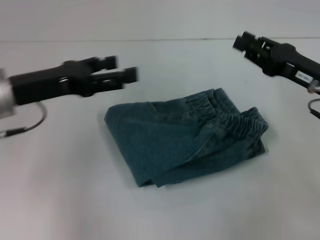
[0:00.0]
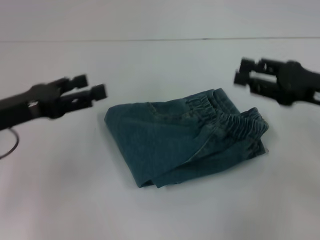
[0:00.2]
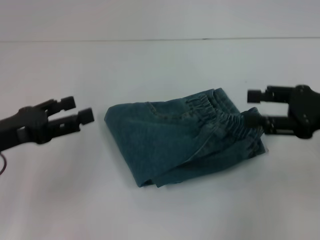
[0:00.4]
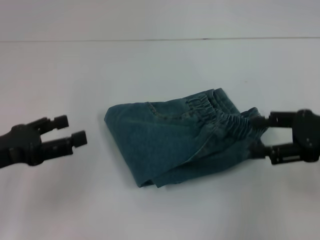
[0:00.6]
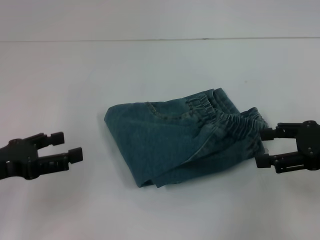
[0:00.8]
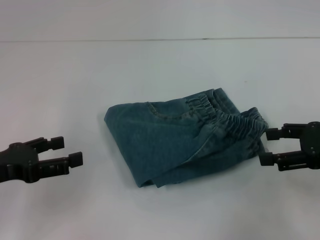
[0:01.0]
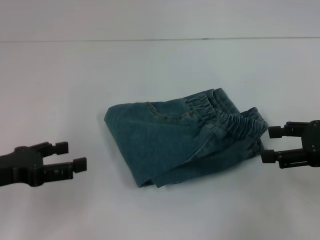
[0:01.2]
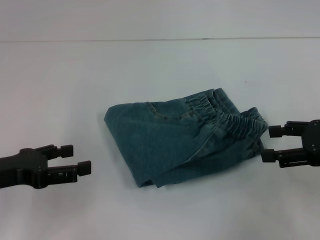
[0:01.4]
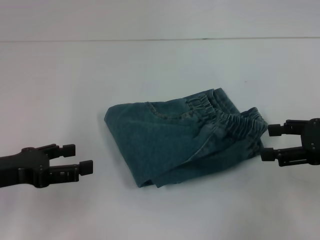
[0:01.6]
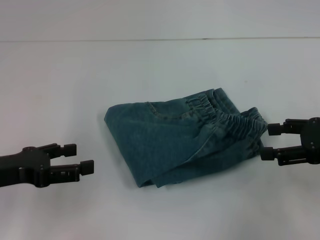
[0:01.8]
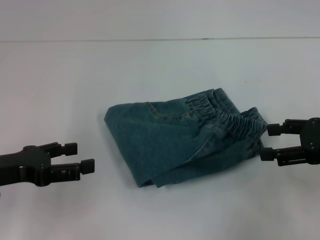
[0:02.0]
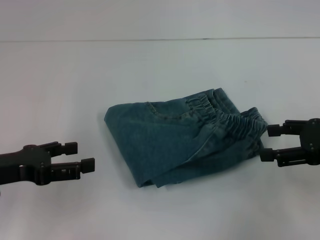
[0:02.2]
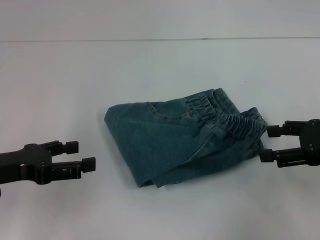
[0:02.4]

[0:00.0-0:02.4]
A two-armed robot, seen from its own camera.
0:00.0 to 0:01.2: The right gripper heads backward, covering some 5 cm, and opens its fingers. The left gripper goes about 10 cm backward, to the left and downward.
0:01.2 to 0:02.4: Both grippers stay put.

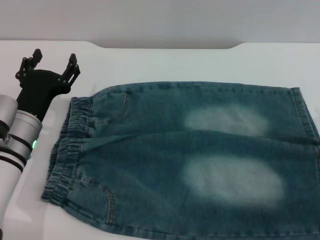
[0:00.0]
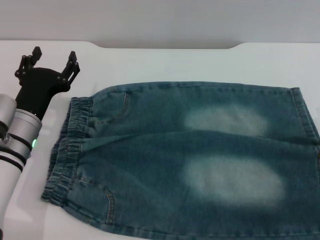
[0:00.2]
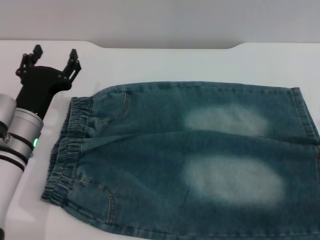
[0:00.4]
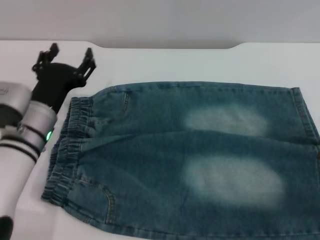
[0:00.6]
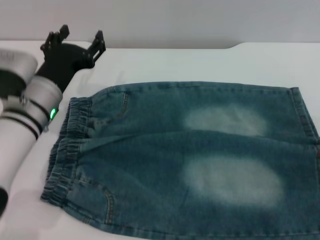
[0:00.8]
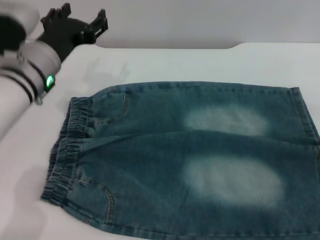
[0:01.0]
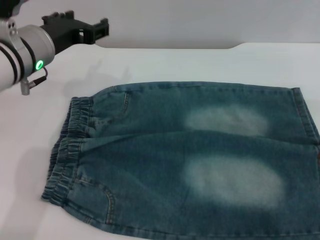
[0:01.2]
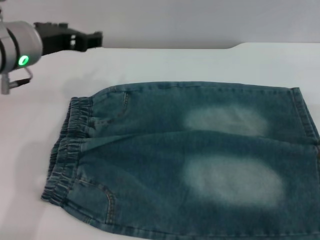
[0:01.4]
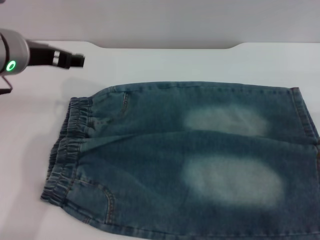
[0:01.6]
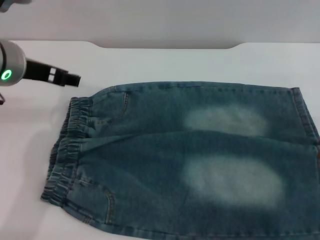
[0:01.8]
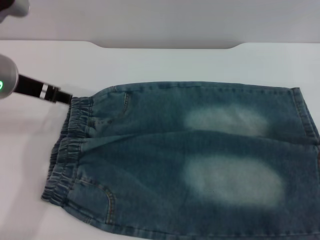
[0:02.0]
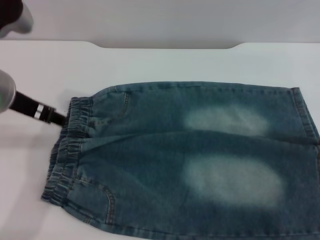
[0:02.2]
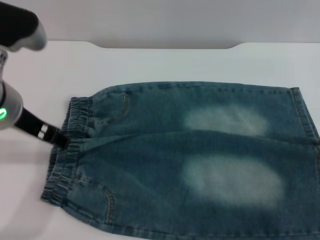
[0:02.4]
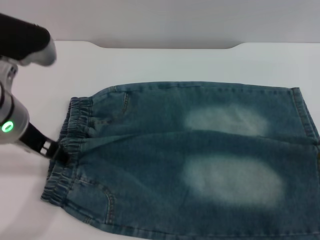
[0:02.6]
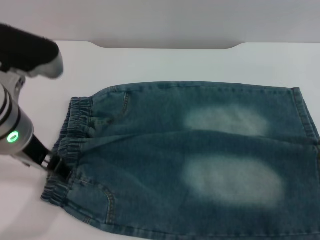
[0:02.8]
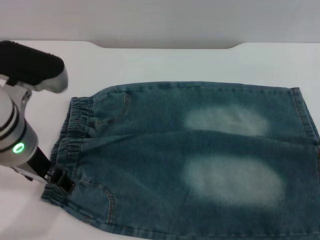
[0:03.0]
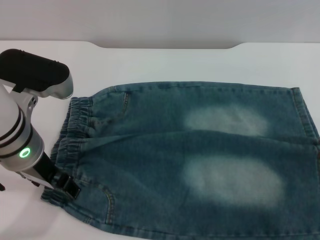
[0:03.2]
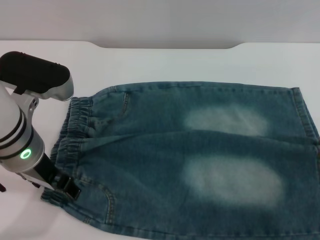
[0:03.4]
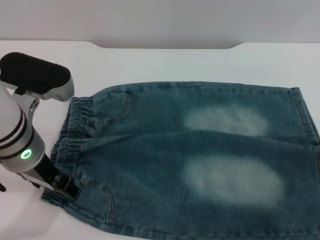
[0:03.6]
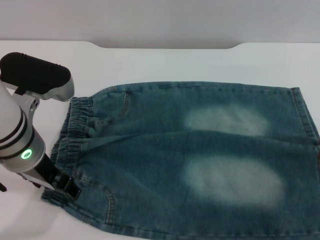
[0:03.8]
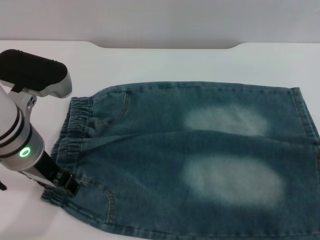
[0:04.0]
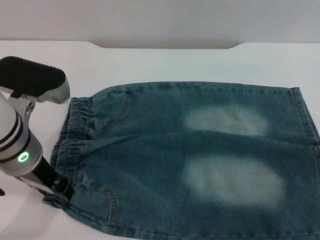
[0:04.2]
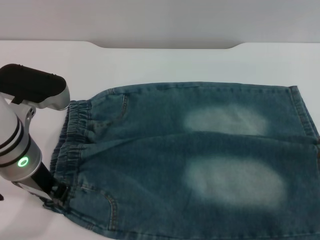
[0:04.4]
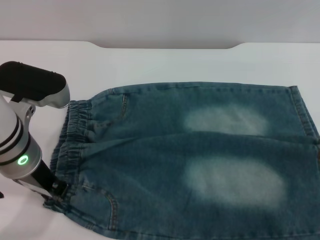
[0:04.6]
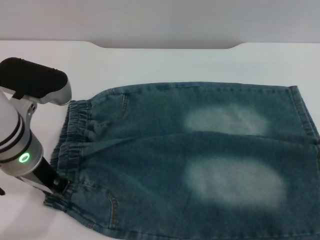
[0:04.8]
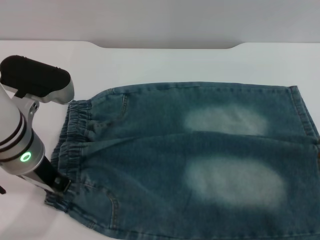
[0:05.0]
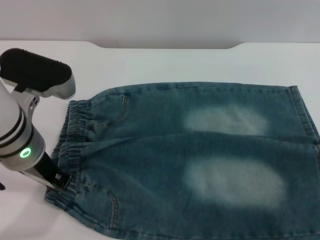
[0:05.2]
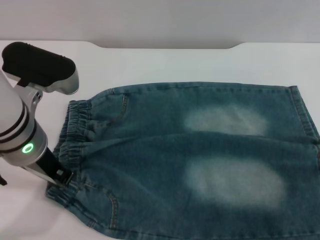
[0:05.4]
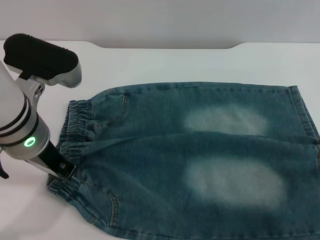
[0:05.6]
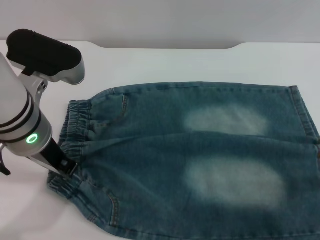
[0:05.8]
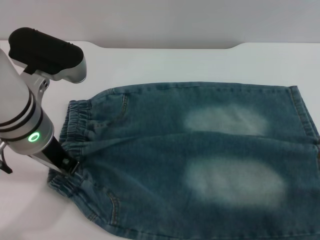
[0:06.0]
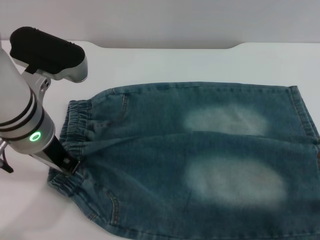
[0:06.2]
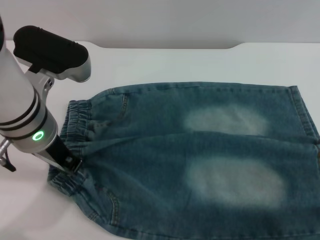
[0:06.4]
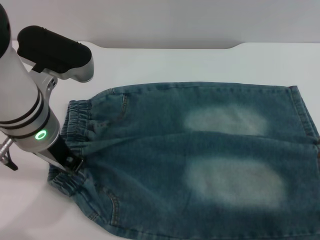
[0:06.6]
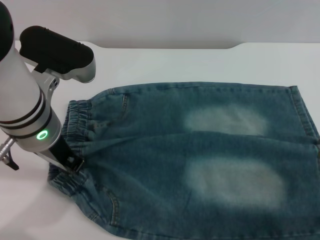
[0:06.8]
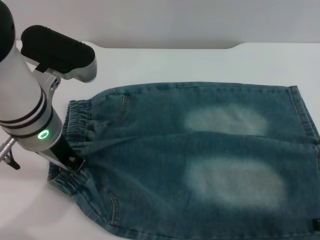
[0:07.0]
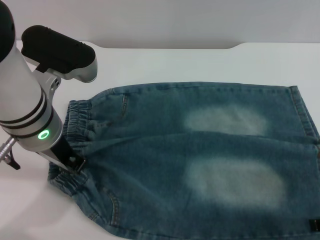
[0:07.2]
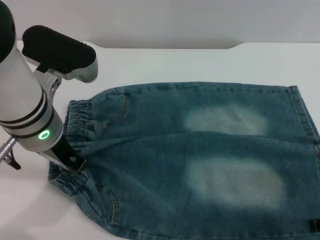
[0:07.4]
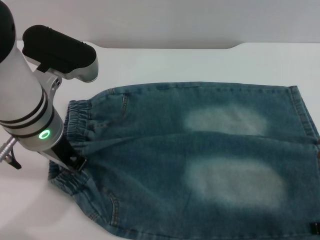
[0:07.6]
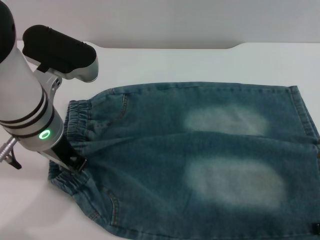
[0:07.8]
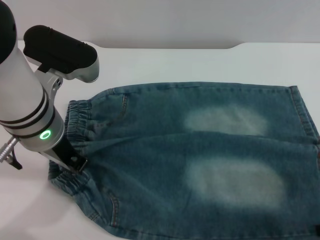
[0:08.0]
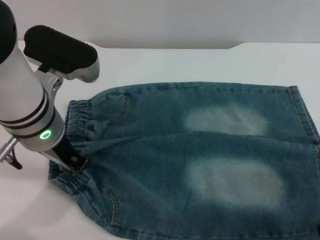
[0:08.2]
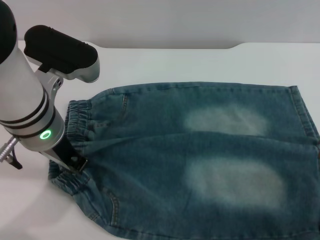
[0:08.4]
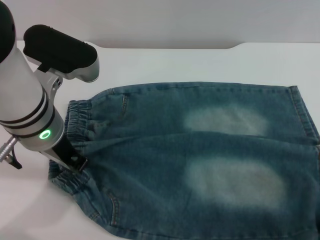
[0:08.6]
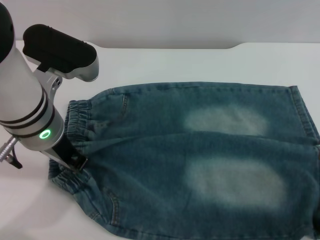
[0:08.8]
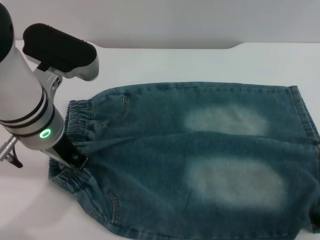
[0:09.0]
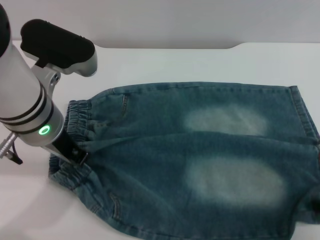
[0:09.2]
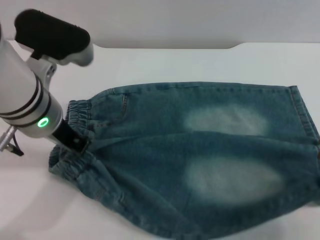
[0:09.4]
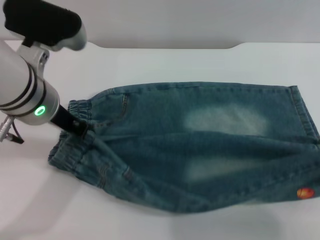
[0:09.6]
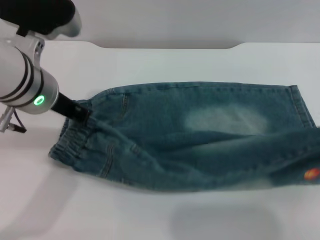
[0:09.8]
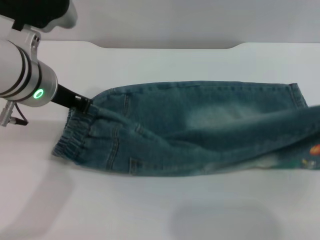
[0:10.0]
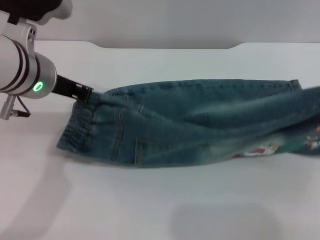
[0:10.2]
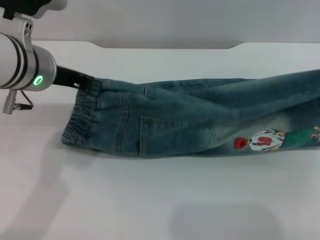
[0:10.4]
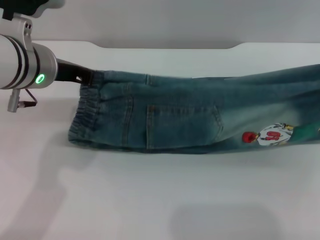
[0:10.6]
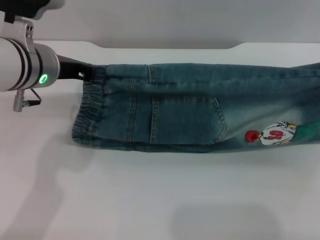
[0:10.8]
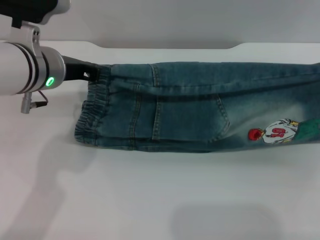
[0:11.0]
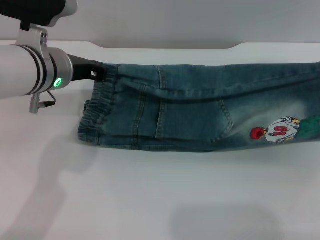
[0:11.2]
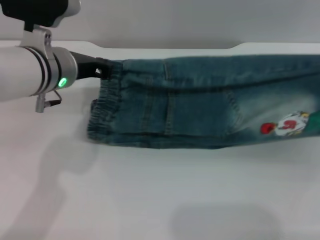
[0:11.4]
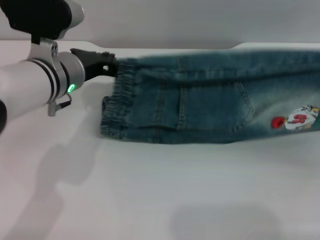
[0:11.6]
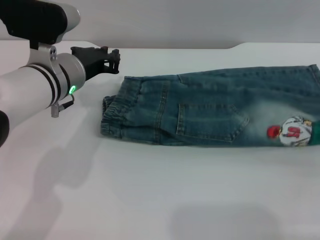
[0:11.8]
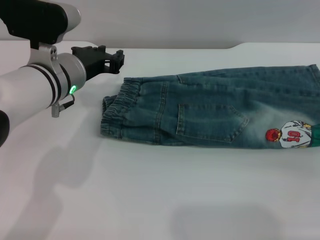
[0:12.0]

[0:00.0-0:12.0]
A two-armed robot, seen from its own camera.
0:00.0 to 0:01.6: The left gripper moves upward, approximately 15 cm.
0:01.6 to 0:03.0: The left gripper heads backward, covering some 5 cm.
0:03.0 to 0:04.4: The left gripper closes.
0:04.4 to 0:06.0: The left gripper closes up.
0:06.0 to 0:07.6: There are only small adjustments of the grippers.
0:07.6 to 0:09.0: The right gripper closes.
0:09.0 to 0:10.4: The right gripper goes some 5 cm upward.
0:10.4 to 0:12.0: The left gripper travels downward by approximately 5 cm. Meanwhile the right gripper heads downward, covering some 10 cm, and opens.

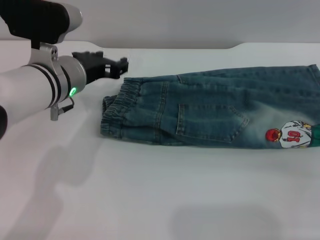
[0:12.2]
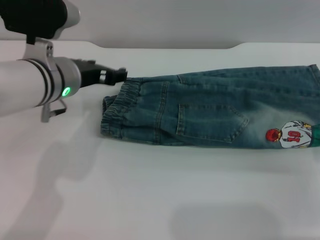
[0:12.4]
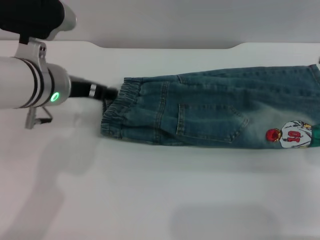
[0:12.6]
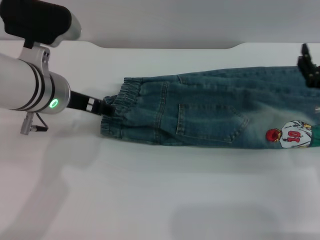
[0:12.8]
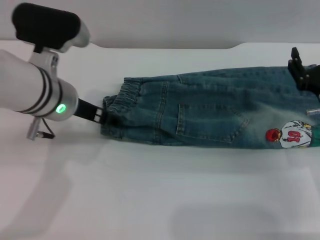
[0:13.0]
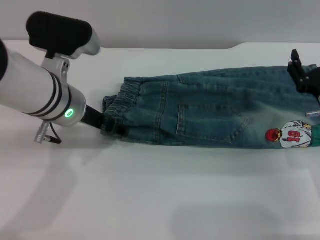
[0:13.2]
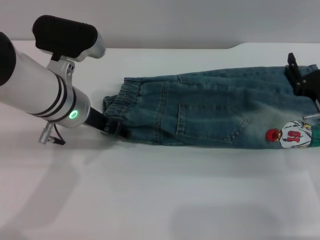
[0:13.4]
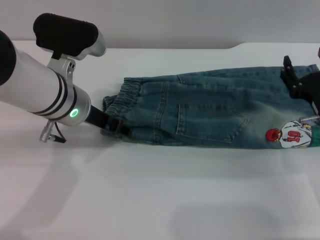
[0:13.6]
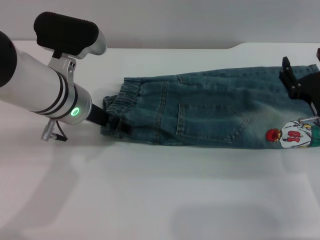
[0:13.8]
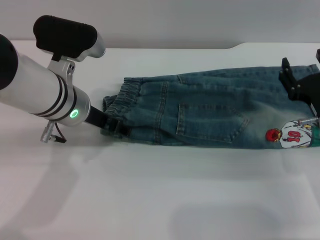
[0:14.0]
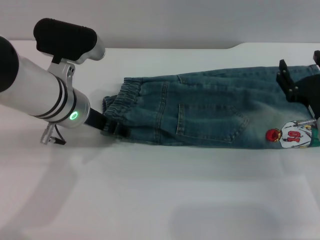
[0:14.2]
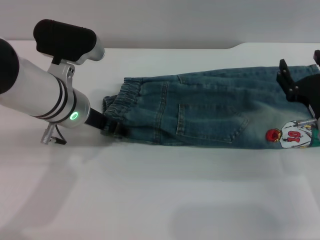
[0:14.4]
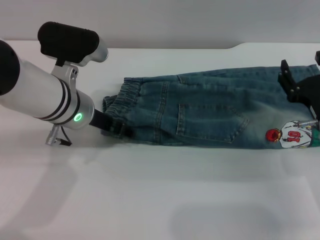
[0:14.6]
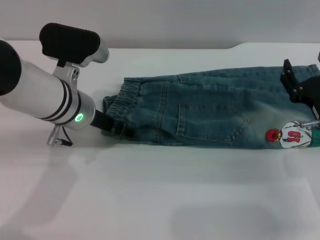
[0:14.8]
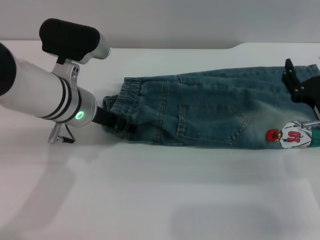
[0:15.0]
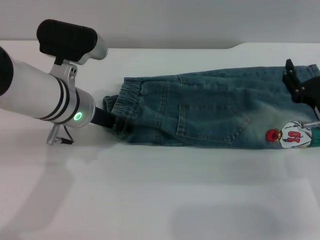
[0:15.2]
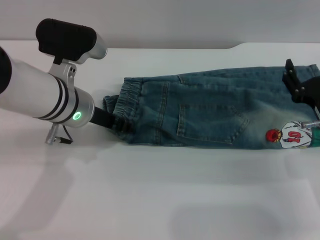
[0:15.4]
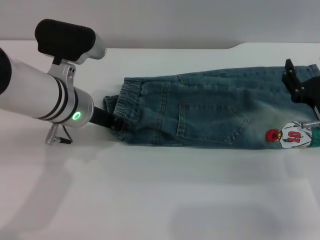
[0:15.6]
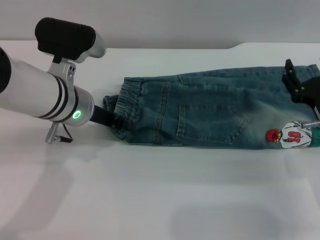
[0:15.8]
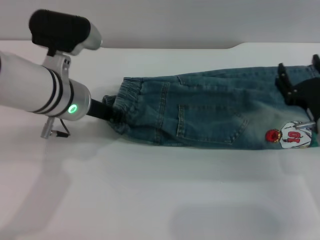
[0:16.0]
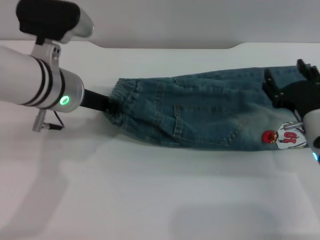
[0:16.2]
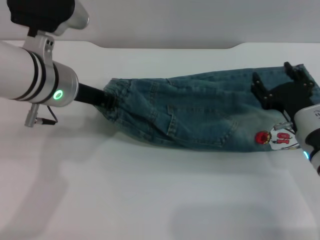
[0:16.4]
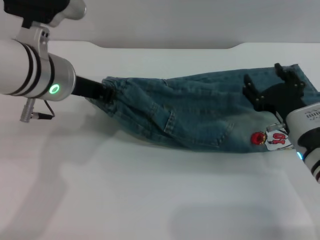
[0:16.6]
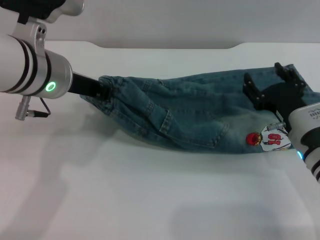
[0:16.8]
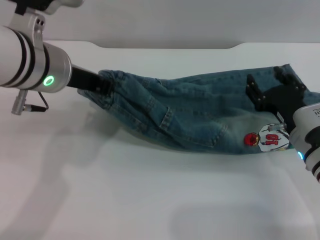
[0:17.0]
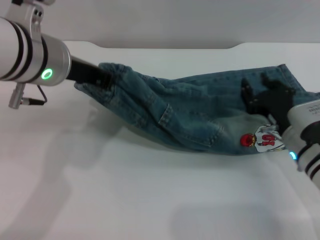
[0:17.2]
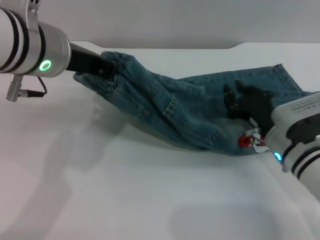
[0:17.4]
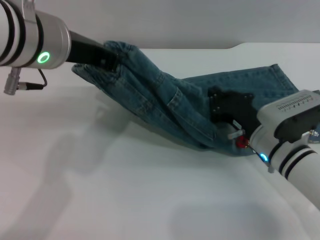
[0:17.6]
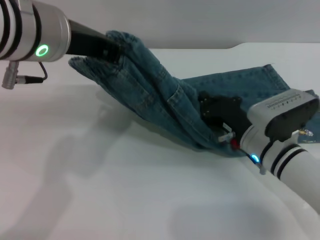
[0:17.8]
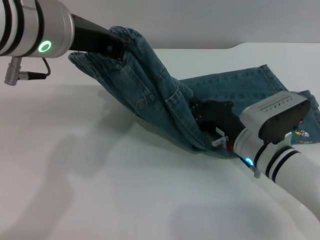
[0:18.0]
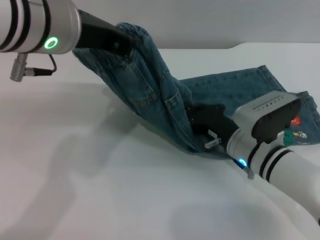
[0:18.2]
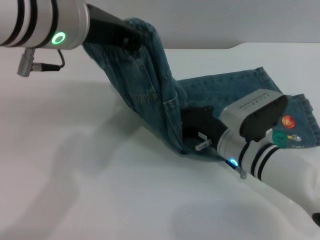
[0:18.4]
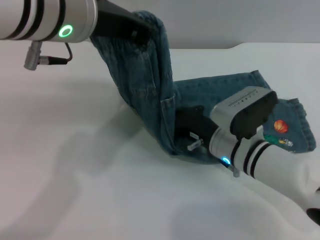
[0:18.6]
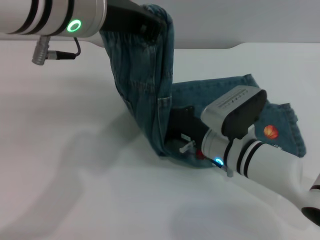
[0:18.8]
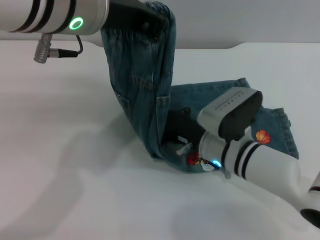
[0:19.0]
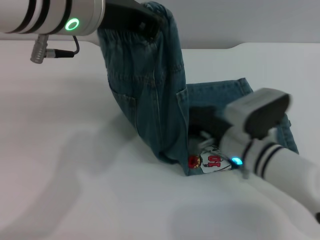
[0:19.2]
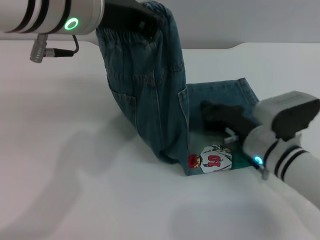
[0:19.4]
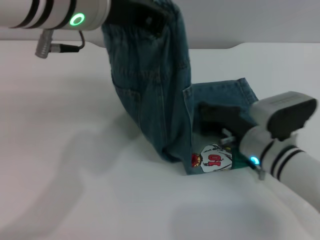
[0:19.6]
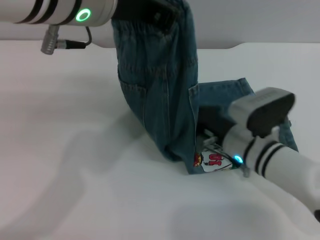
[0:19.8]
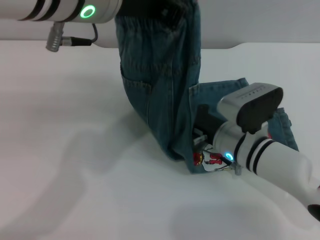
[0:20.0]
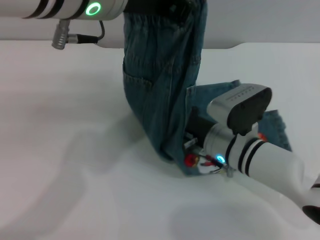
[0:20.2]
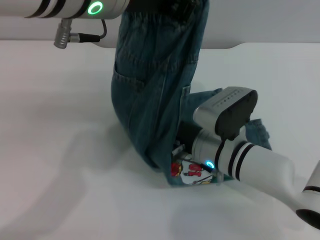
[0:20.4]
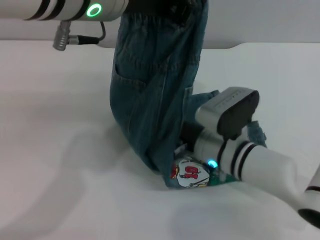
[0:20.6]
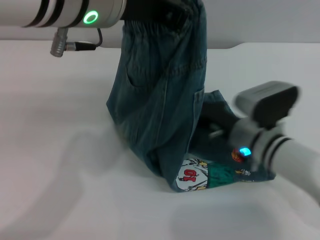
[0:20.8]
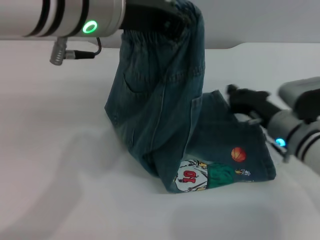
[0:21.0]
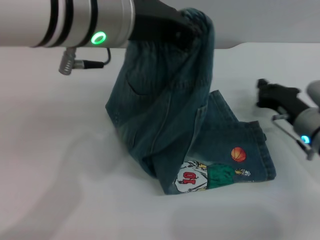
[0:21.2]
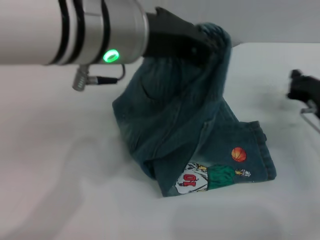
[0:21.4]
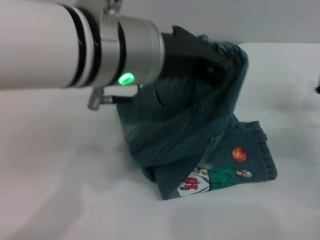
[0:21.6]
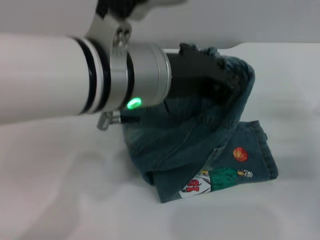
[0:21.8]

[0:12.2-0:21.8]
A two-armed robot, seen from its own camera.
0:12.2 to 0:13.8: The left gripper opens its fingers. The right gripper heads to the left, covering about 10 cm.
0:13.8 to 0:15.4: The left gripper closes.
0:15.4 to 0:17.0: The left gripper travels upward by approximately 10 cm, and closes up.
0:17.0 to 0:18.6: The right gripper goes some 10 cm to the left, and closes its fingers; the left gripper heads upward, covering roughly 10 cm.
0:20.2 to 0:21.8: The left gripper heads downward, covering some 5 cm, while the right gripper is displaced to the right by about 20 cm.
